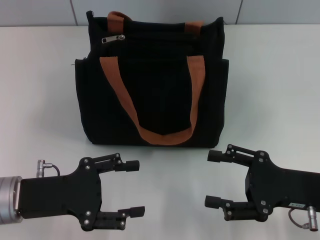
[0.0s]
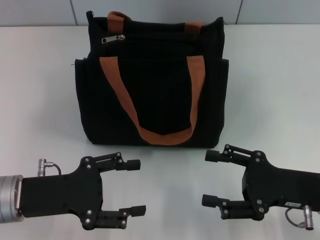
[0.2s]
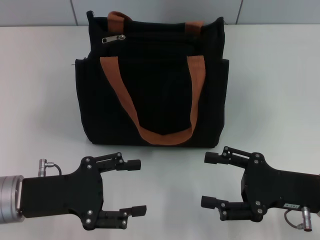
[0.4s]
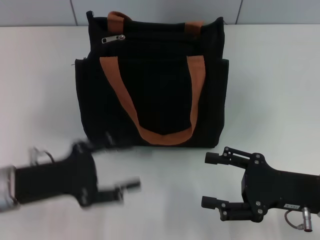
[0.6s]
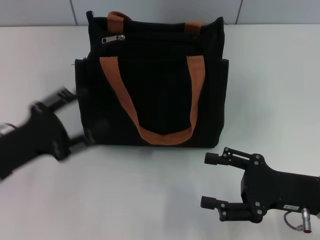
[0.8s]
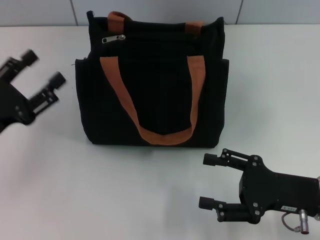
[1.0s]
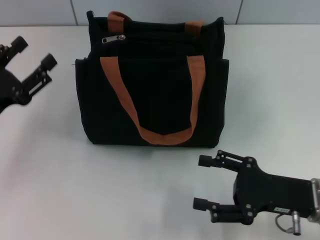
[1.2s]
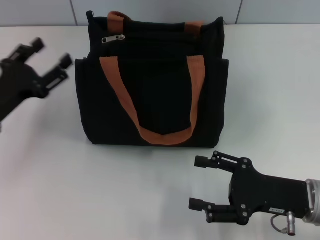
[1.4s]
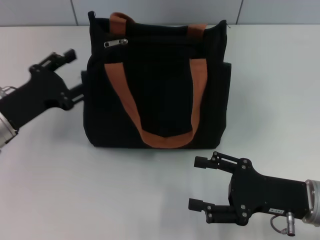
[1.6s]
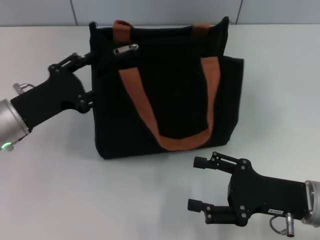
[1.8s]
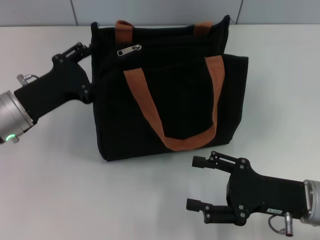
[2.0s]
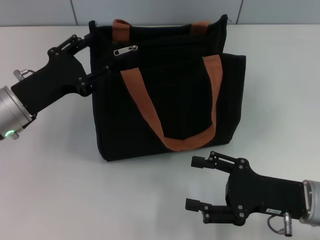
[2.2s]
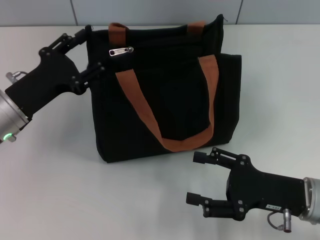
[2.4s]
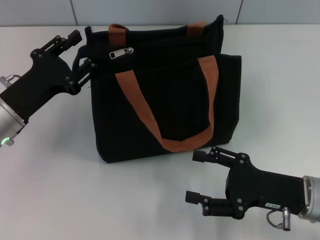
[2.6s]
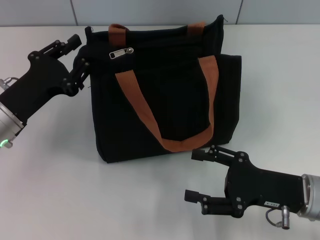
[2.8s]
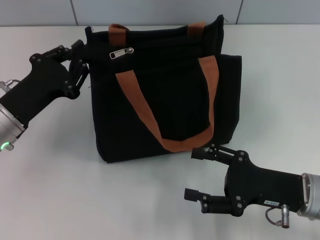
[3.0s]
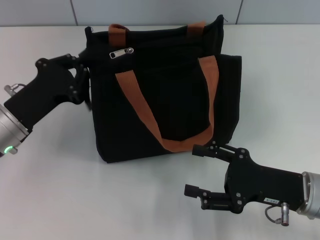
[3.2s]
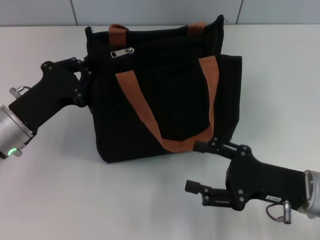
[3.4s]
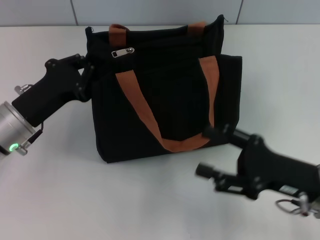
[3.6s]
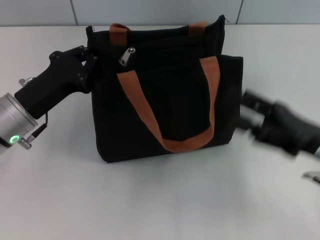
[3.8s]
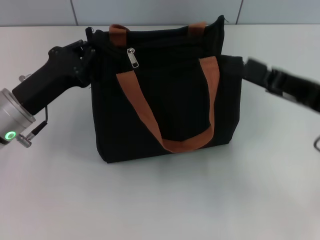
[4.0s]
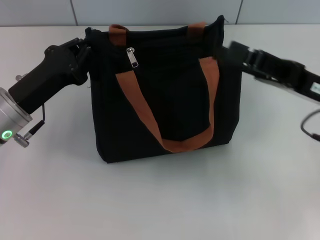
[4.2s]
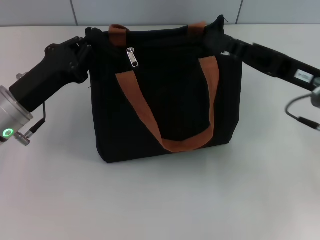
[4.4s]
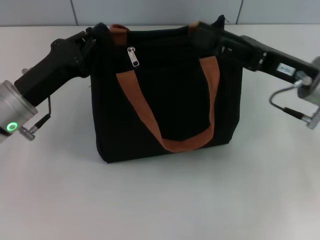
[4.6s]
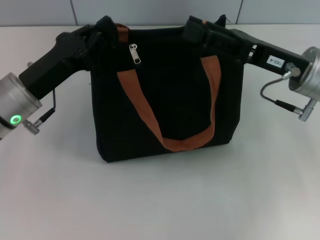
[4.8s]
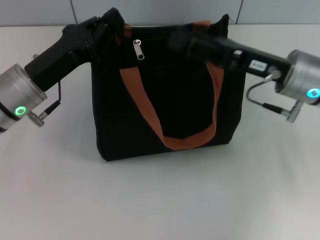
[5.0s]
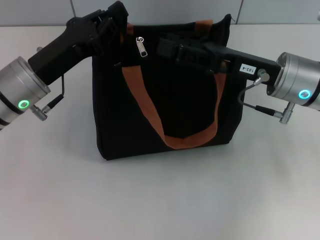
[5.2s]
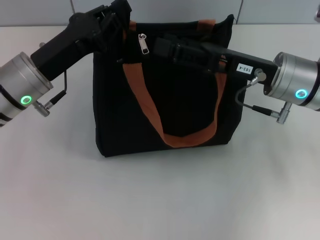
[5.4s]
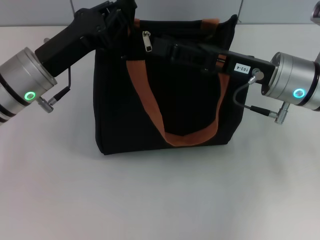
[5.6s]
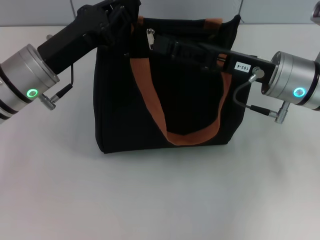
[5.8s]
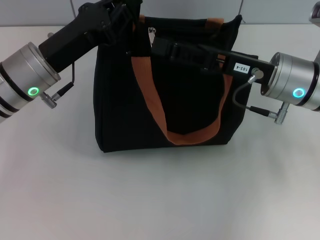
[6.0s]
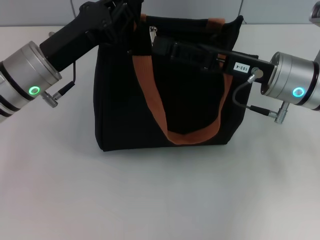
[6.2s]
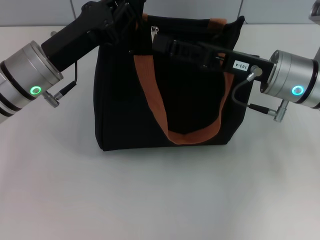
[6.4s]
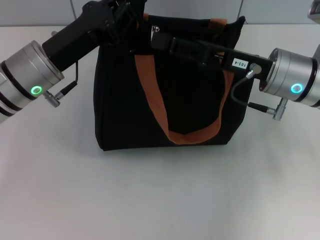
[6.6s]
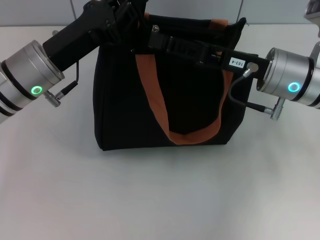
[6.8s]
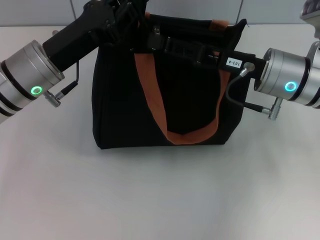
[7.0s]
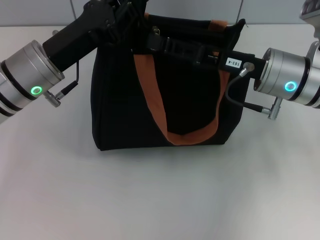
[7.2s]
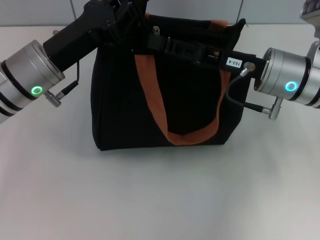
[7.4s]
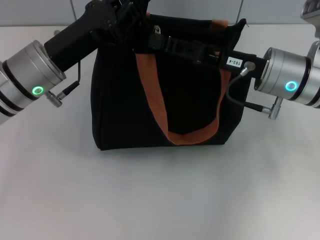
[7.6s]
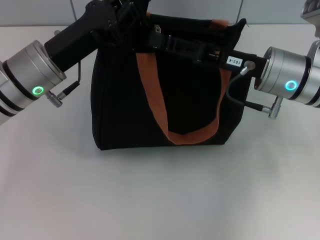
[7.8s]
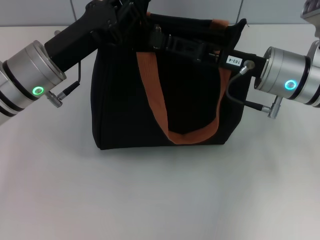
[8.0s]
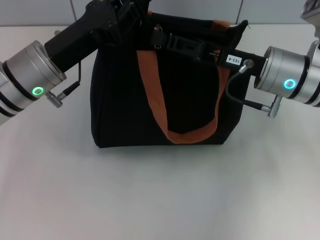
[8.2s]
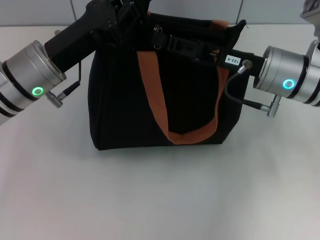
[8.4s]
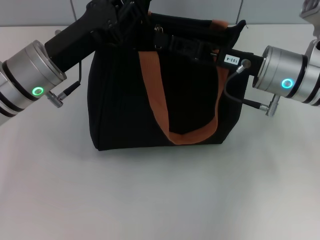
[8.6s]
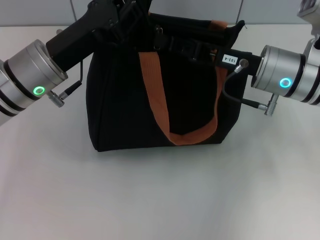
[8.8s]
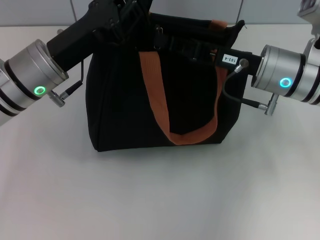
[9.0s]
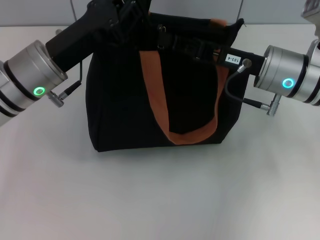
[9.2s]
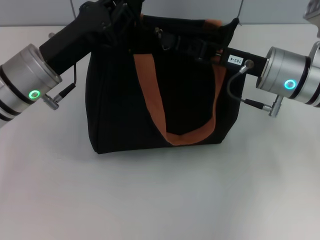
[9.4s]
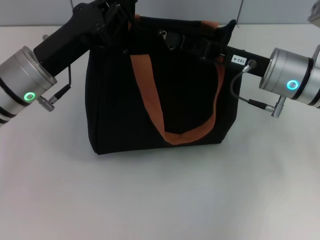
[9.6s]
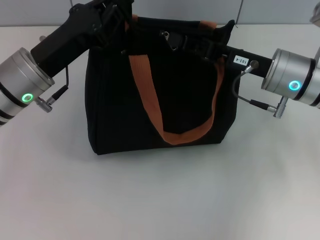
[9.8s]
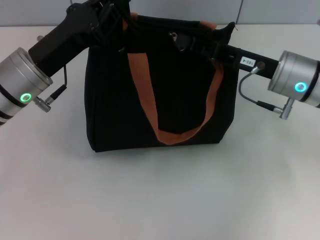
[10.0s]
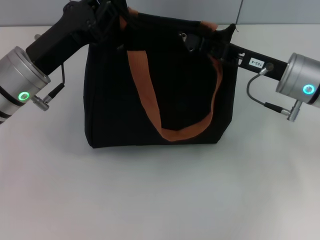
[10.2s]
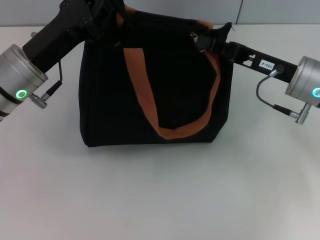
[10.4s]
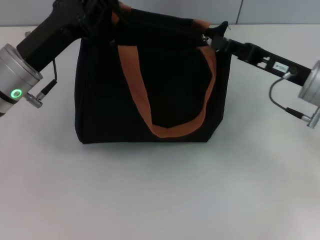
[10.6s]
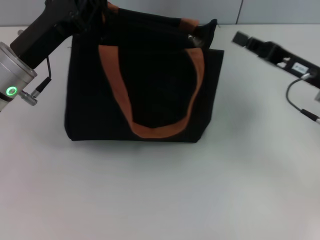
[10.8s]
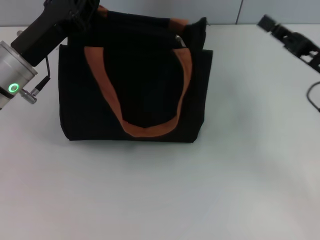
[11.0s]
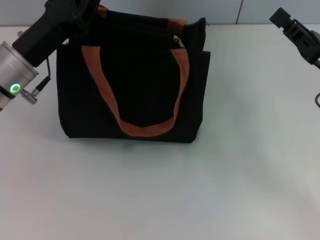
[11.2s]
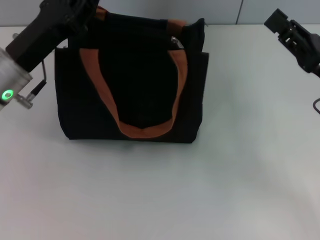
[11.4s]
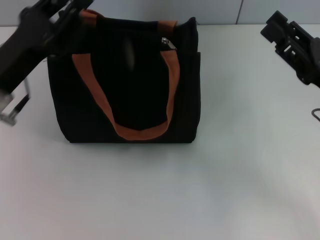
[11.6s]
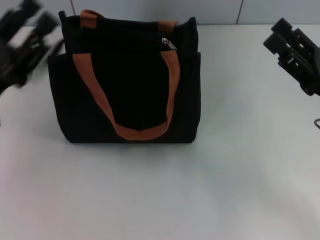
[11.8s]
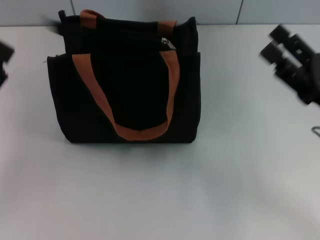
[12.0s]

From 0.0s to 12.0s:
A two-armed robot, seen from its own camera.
Step, from 0.0s to 10.6s: Pull up the zipper with your right hand.
From 0.0s to 1.6s: The left gripper heads forward, covering some 5 cm.
From 1.6s to 3.0s: The left gripper closes up.
From 3.0s to 4.4s: The right gripper goes roughly 15 cm upward and forward. Meanwhile the left gripper closes.
From 4.4s to 6.0s: The left gripper shifts by roughly 5 cm. The right gripper heads to the left, covering about 5 cm.
From 6.0s to 7.6s: The right gripper closes.
From 7.6s to 9.0s: The right gripper closes up.
From 9.0s to 10.4s: The right gripper travels to the right by some 5 cm.
From 10.4s to 12.0s: The right gripper is displaced backward by roughly 10 cm, and opens up; the left gripper travels backward and to the left by roughly 15 cm, and opens.

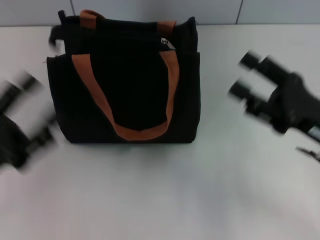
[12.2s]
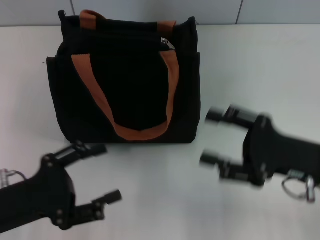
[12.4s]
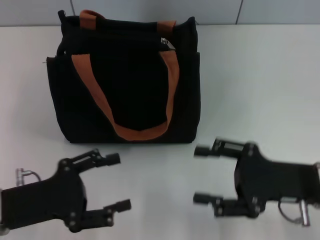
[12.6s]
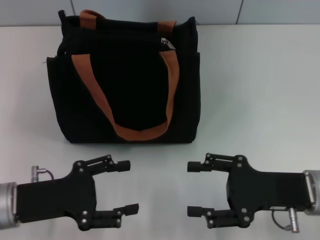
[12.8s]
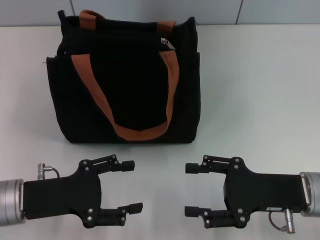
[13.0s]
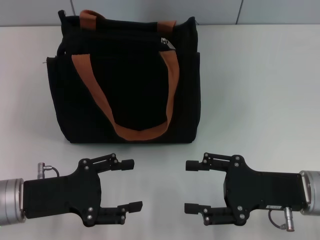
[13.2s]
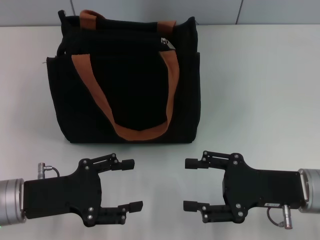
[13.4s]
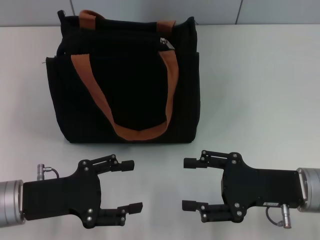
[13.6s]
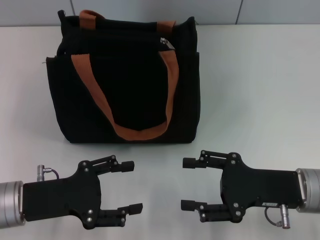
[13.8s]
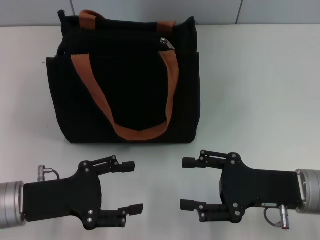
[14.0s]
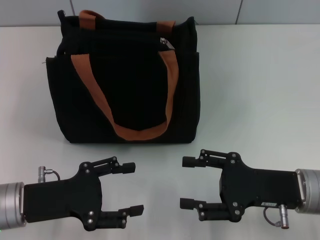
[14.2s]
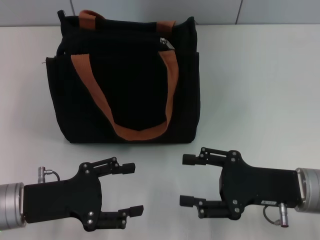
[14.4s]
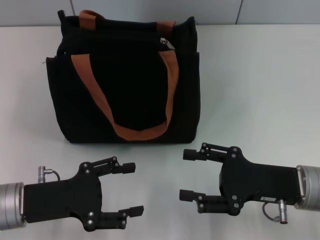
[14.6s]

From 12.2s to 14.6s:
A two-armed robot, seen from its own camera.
From 12.2s to 13.4s: The left gripper changes place by approximately 5 cm; the right gripper shifts by some 5 cm.
From 13.4s to 14.6s: Neither gripper changes place.

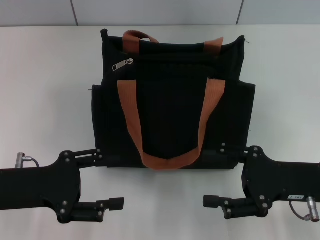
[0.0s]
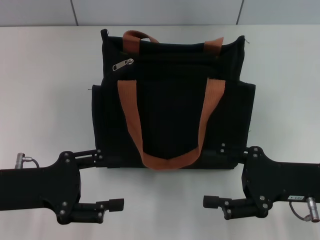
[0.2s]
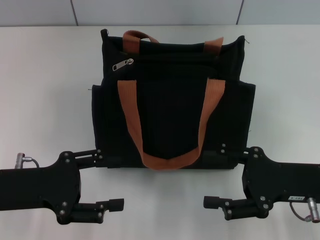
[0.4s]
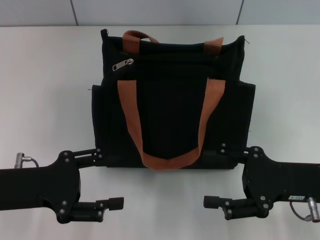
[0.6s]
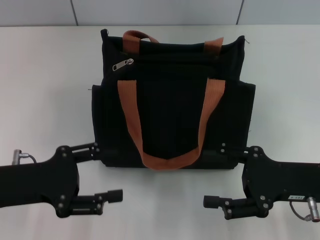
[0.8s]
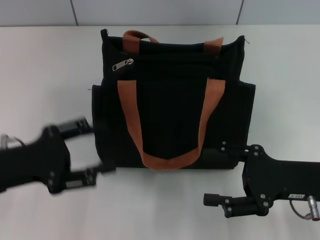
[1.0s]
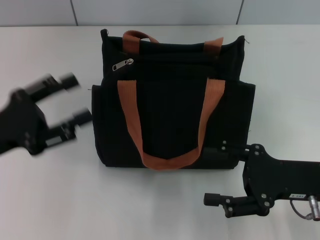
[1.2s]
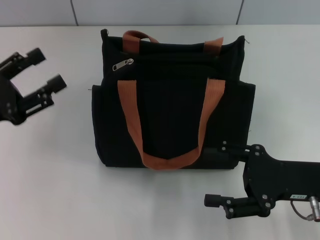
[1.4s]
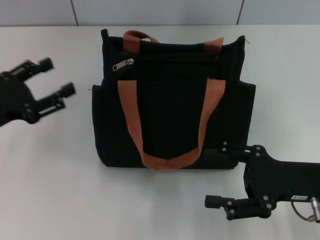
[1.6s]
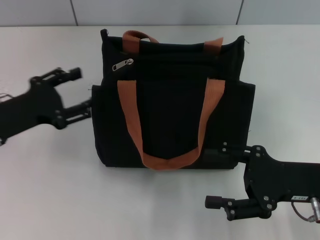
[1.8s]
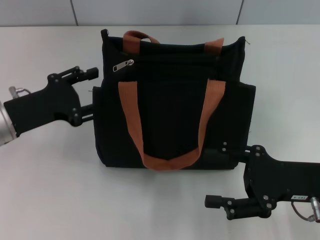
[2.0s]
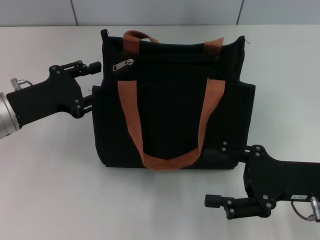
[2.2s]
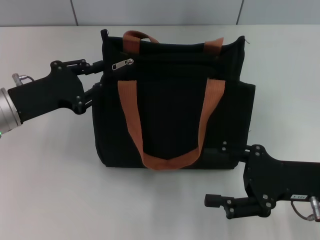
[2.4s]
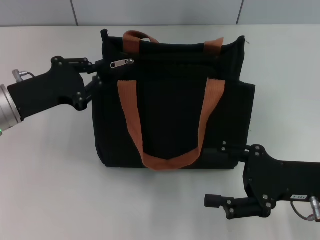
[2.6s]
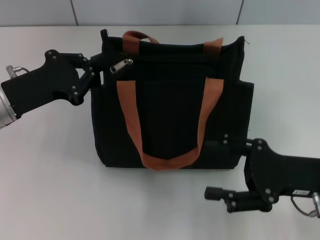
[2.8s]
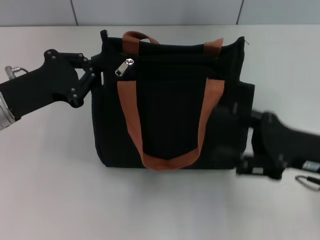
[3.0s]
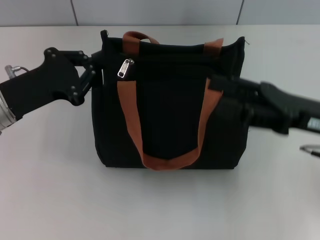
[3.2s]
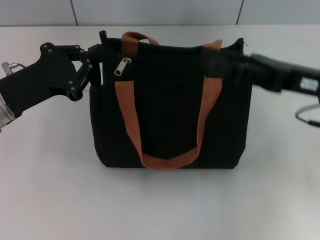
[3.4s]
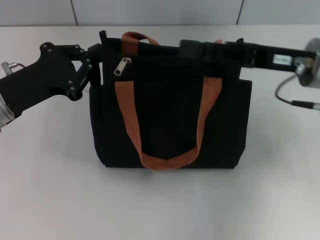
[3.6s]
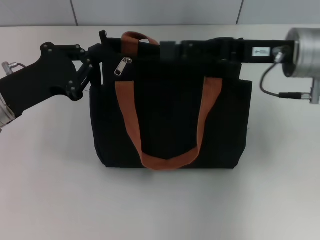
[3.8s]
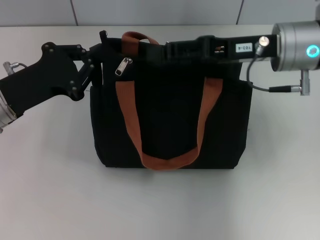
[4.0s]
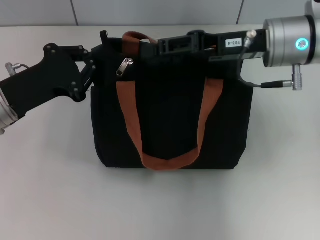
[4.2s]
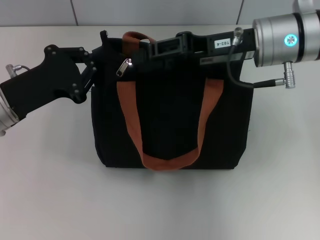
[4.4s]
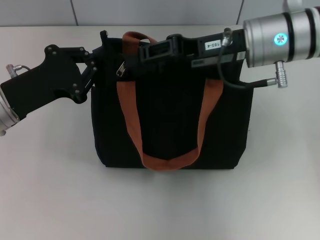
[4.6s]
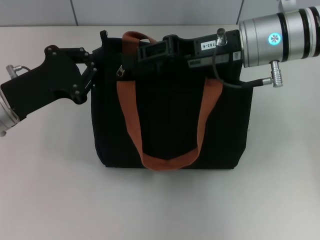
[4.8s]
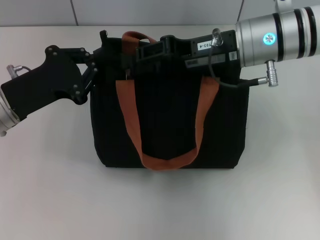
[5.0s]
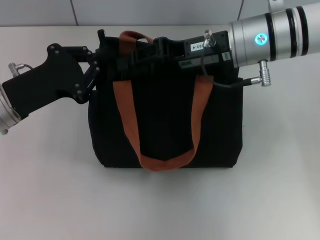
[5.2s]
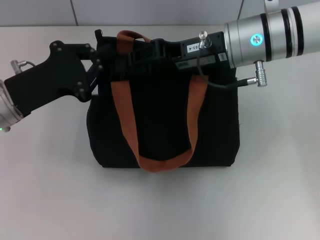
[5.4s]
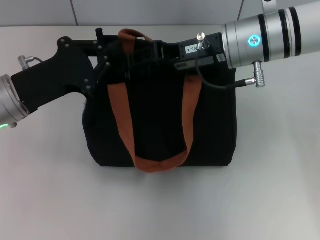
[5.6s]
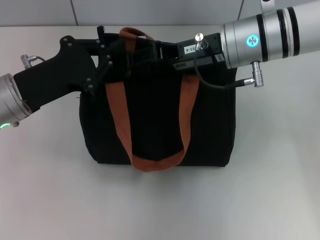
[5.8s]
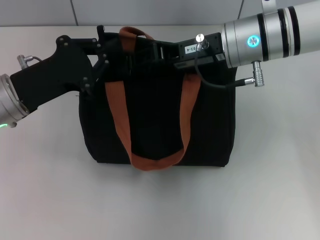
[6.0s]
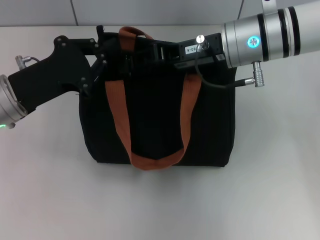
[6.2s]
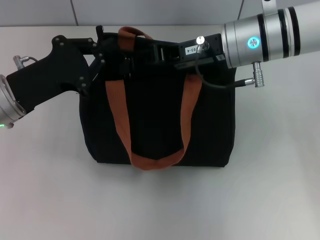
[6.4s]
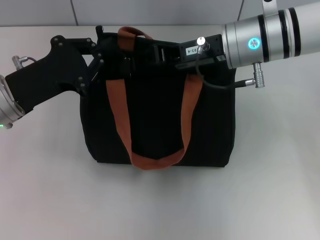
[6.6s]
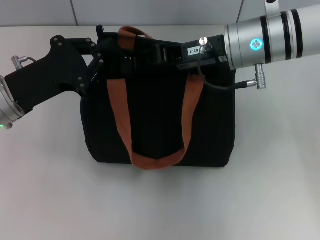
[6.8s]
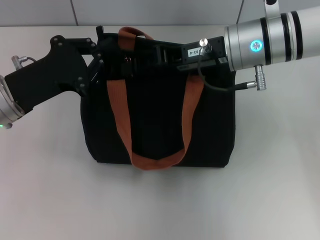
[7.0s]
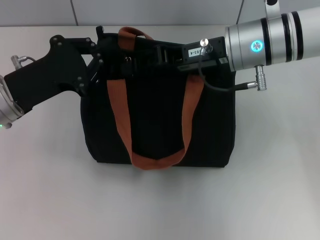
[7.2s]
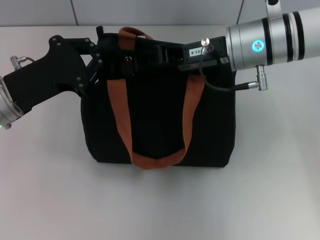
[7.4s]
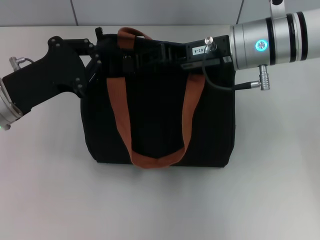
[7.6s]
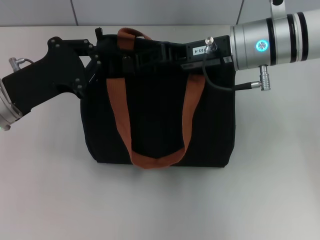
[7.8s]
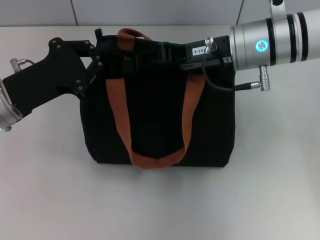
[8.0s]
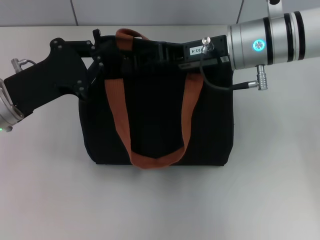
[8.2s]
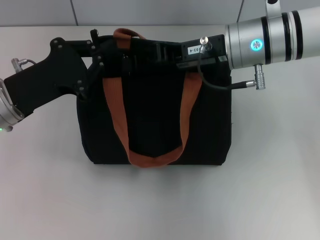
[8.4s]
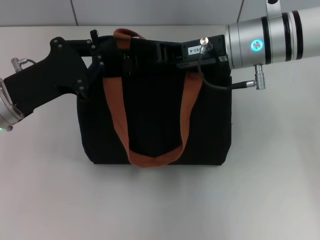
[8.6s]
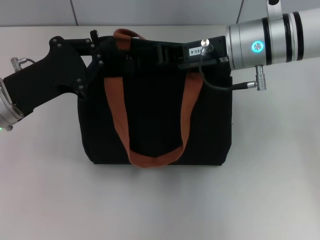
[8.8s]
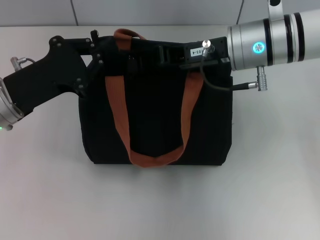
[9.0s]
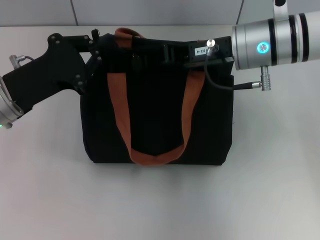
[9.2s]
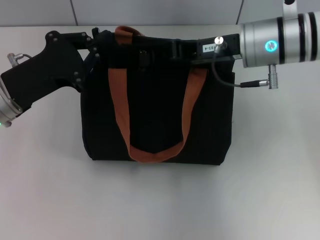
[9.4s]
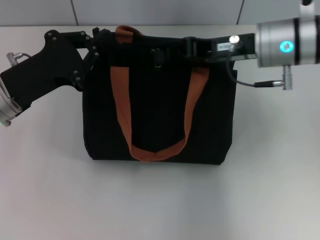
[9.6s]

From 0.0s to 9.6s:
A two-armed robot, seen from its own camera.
From 0.0s to 1.6s: The left gripper changes place by some 5 cm.
From 1.6s to 3.2s: The right gripper heads upward, covering about 5 cm. Meanwhile the left gripper shifts some 5 cm to the right, and closes up.
From 3.2s to 4.8s: The right gripper is displaced to the left, forward and upward by roughly 15 cm, and closes its fingers.
From 4.8s to 6.4s: The grippers make only small movements.
From 6.4s to 8.0s: Both grippers stay put.
From 8.0s to 9.6s: The grippers move only a little.
